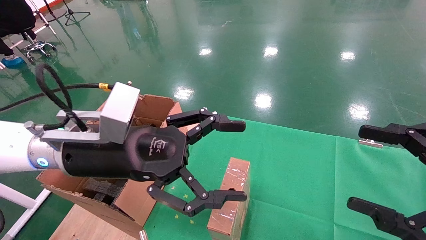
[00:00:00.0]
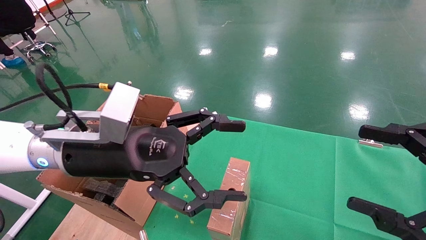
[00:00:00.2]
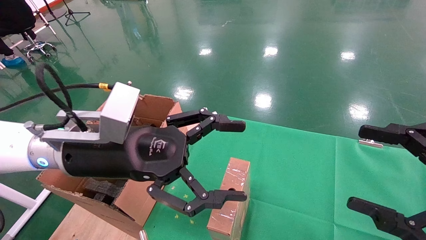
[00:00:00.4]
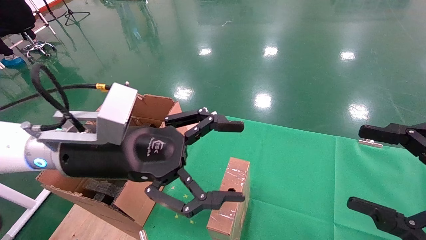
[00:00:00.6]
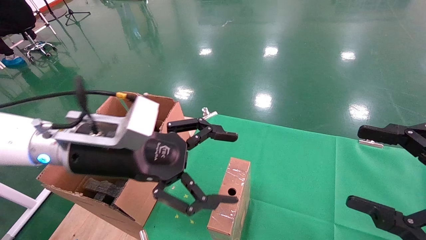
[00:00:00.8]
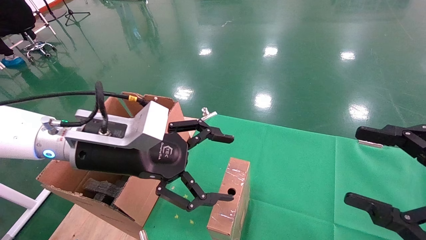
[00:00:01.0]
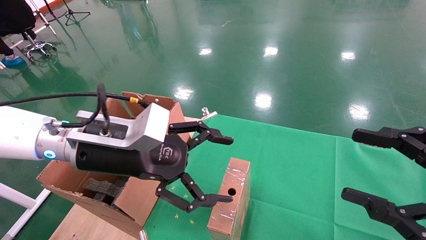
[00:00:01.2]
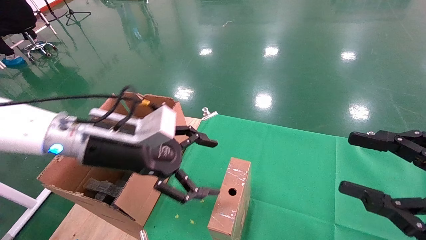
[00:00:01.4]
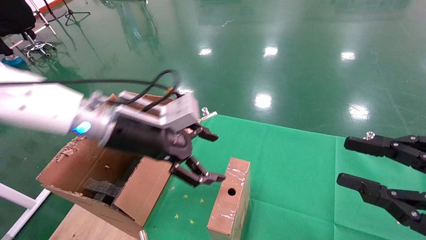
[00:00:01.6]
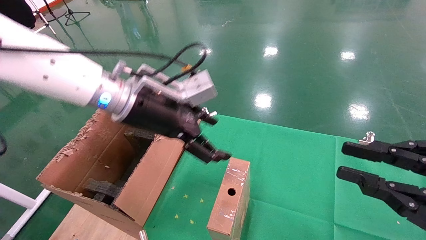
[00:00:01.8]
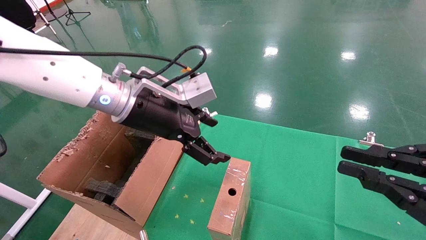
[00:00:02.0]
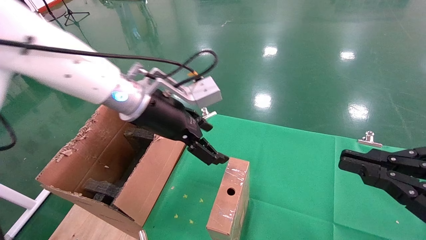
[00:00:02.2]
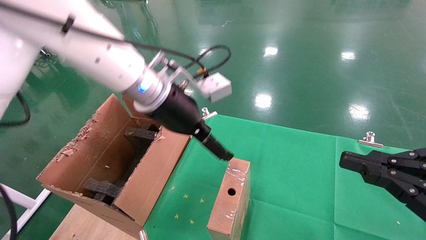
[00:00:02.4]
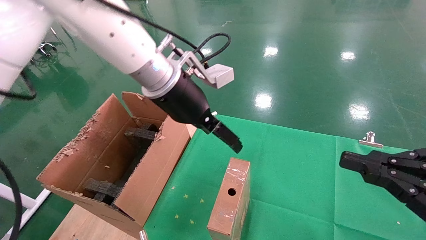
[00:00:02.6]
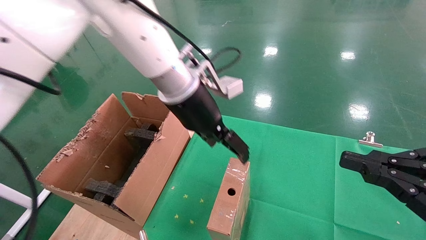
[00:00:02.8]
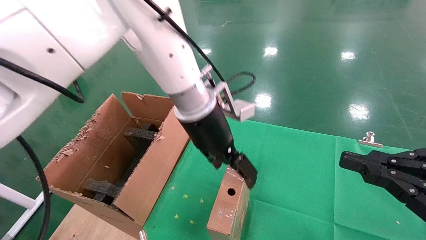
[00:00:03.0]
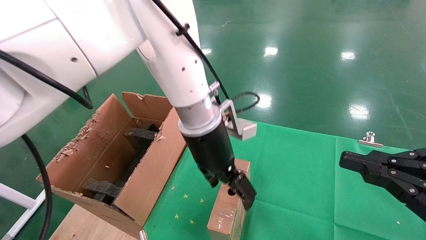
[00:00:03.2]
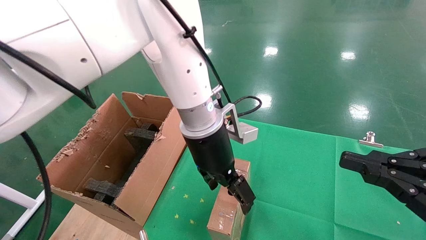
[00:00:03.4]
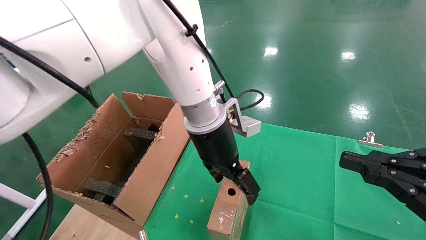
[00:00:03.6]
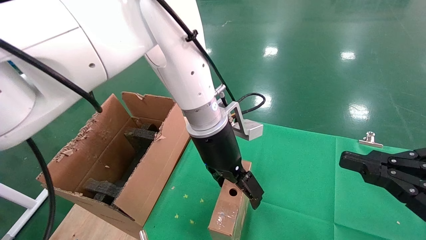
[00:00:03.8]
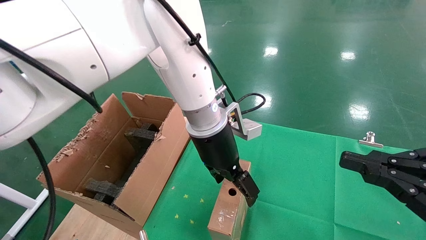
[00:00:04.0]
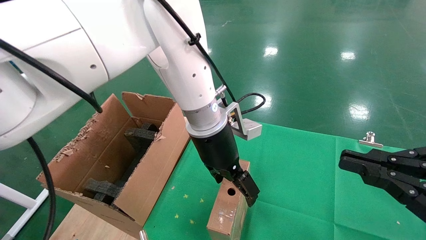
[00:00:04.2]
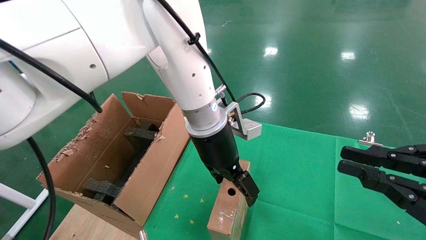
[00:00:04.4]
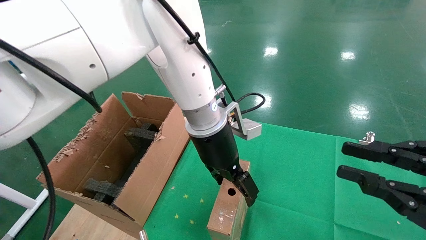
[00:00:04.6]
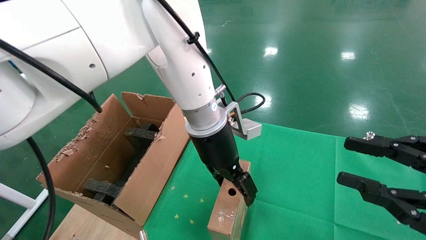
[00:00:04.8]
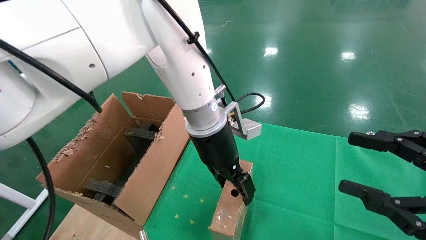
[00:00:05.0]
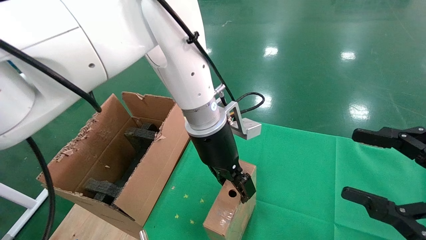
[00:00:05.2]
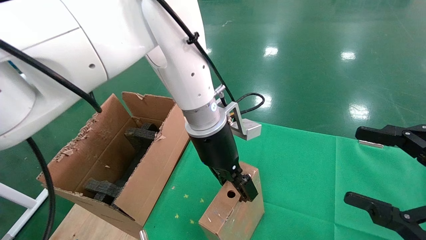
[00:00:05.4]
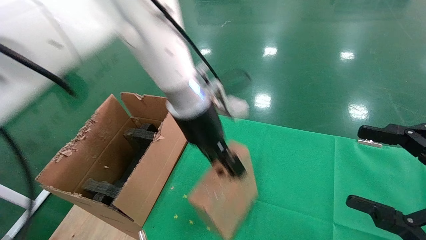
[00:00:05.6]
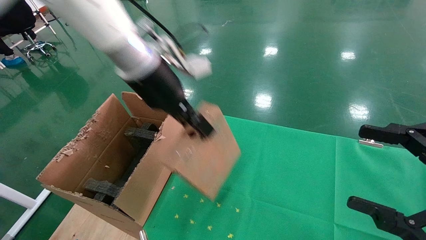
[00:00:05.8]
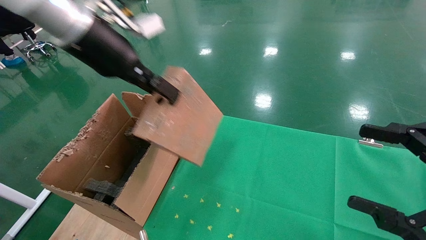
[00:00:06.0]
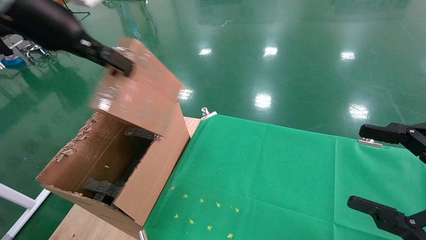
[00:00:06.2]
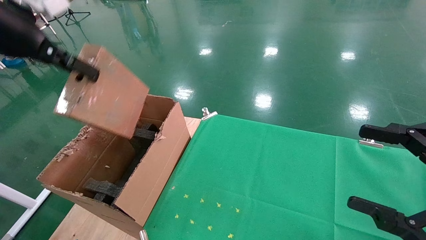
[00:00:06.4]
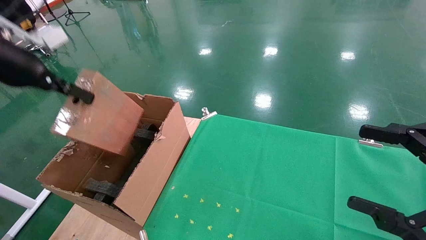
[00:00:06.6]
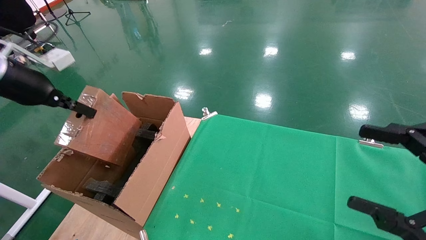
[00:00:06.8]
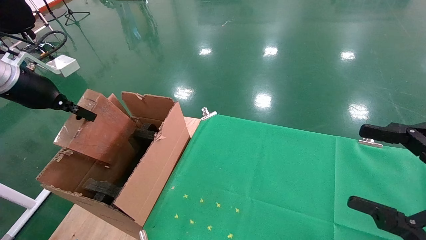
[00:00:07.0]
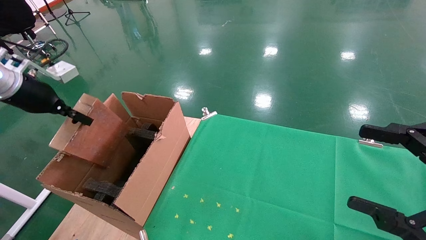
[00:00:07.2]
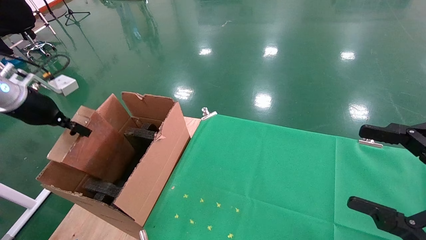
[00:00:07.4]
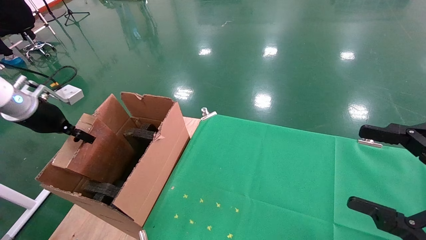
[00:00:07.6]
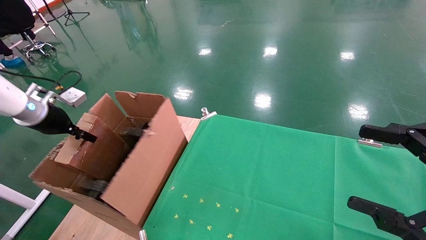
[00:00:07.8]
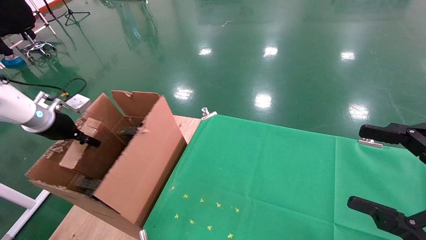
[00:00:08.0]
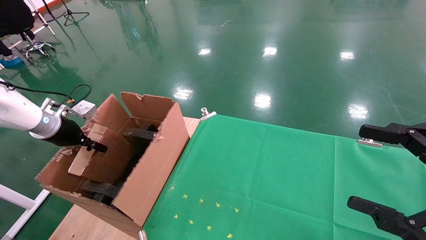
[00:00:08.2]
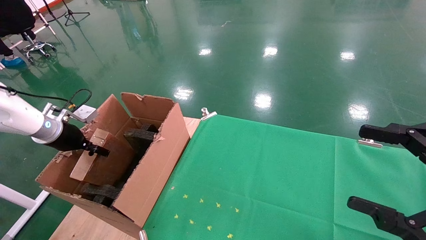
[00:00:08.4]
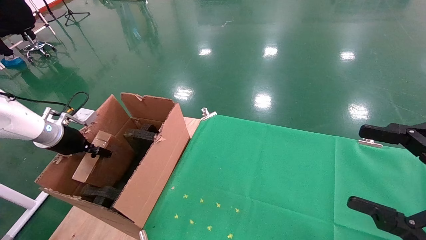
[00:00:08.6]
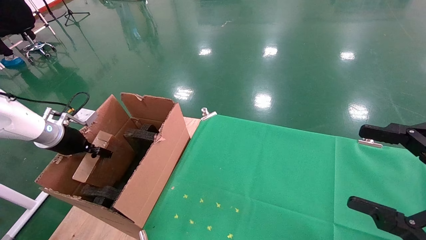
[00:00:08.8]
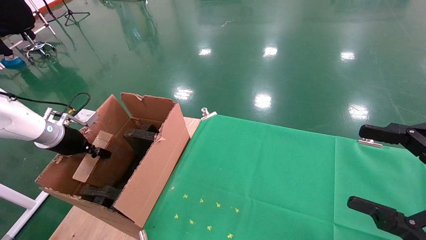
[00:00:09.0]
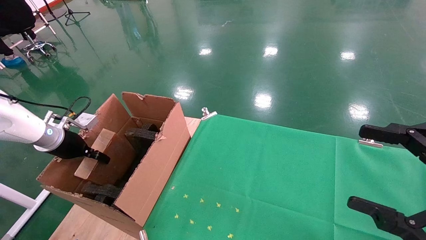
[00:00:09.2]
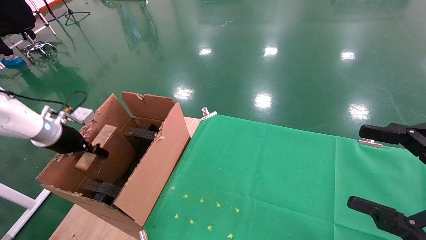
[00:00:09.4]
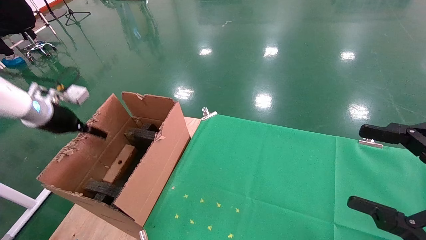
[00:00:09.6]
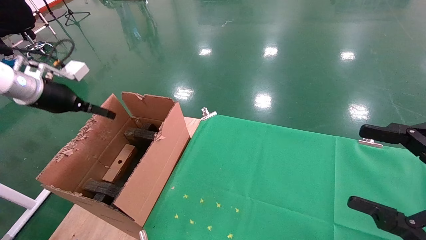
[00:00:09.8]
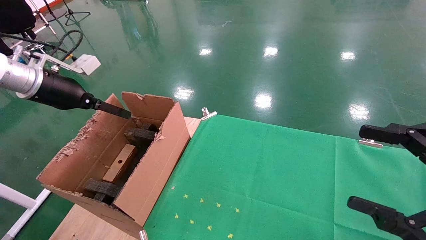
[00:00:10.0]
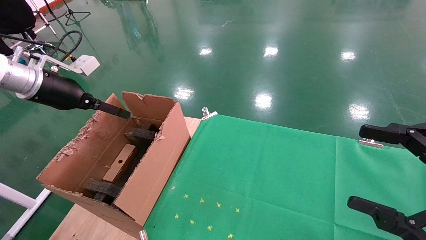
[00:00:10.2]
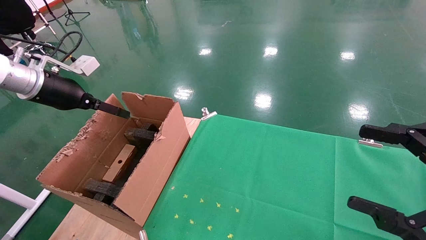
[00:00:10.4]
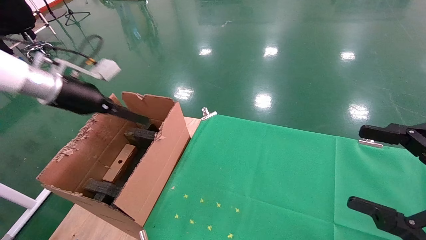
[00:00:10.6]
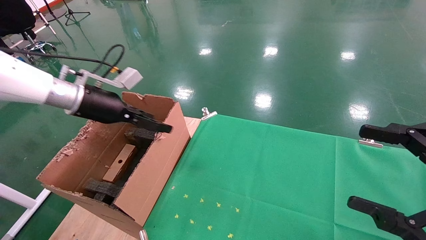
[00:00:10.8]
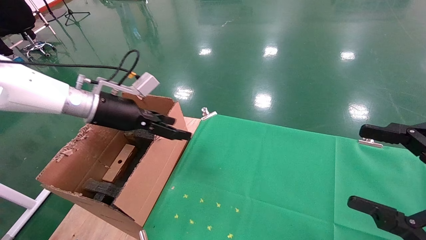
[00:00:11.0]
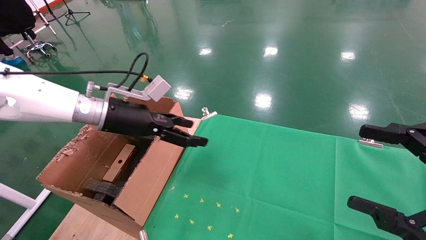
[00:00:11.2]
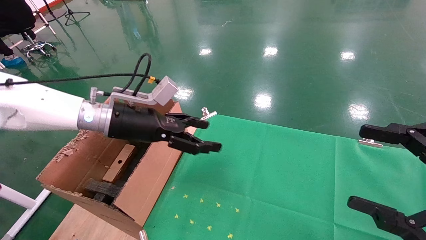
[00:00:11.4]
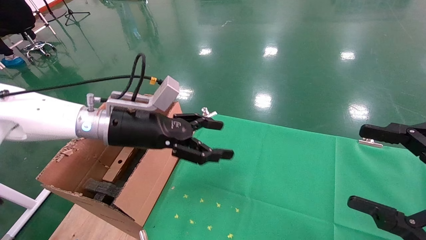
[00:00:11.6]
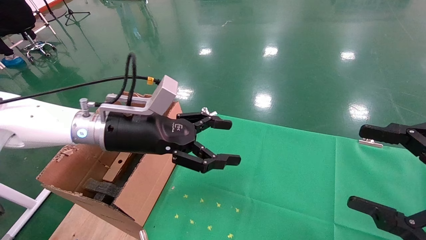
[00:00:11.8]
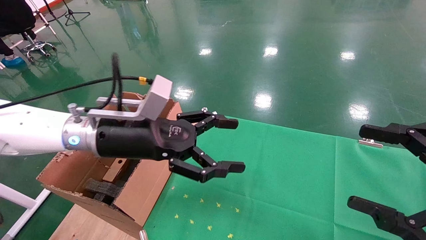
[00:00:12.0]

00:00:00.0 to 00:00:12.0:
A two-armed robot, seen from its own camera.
Task of the whole recording: using a robotic arm to pick up a cardboard box and palace it the carton.
Step, 00:00:01.2 to 00:00:05.2: Pick up the mouse and the power cord paper box.
Step, 00:00:05.4 to 00:00:09.4: Place the mouse and the power cord paper box into the container.
00:00:00.0 to 00:00:01.6: The right gripper closes its fingers. Meanwhile the left gripper is displaced forward by about 5 cm.
00:00:01.6 to 00:00:03.0: The left gripper travels to the right and forward by some 15 cm. The right gripper closes.
00:00:04.4 to 00:00:06.0: The right gripper opens its fingers; the left gripper goes about 25 cm to the left and upward, and closes.
00:00:06.0 to 00:00:07.6: The left gripper goes some 30 cm to the left and downward.
00:00:07.6 to 00:00:09.0: The left gripper shifts approximately 10 cm downward.
00:00:09.0 to 00:00:10.4: The left gripper goes about 15 cm upward and to the right, and opens its fingers.
00:00:10.4 to 00:00:12.0: The left gripper heads to the right, covering roughly 20 cm.

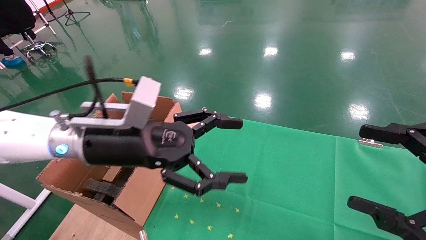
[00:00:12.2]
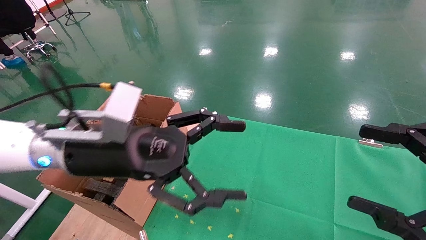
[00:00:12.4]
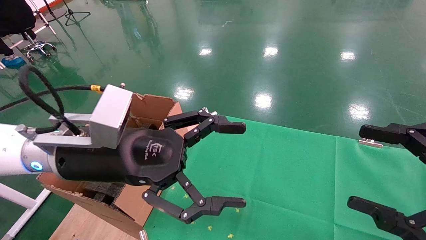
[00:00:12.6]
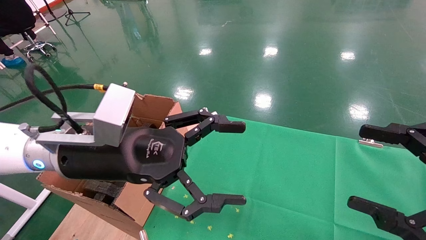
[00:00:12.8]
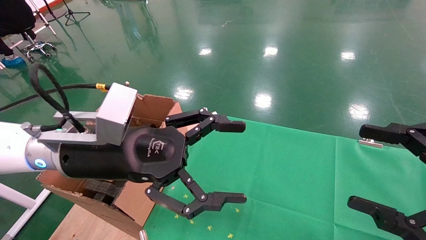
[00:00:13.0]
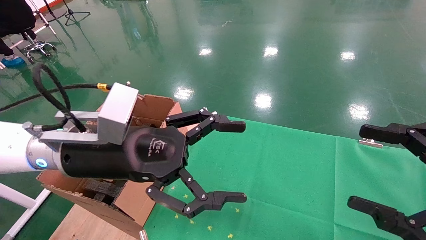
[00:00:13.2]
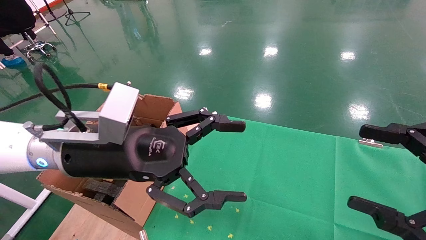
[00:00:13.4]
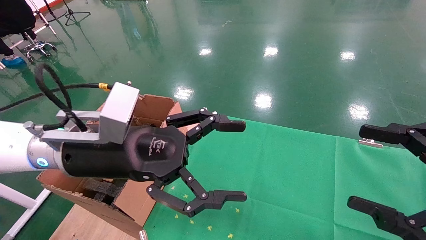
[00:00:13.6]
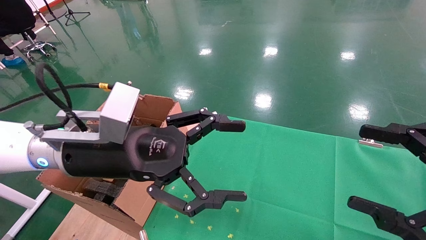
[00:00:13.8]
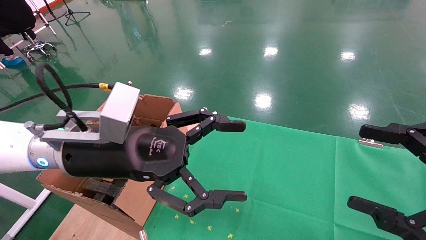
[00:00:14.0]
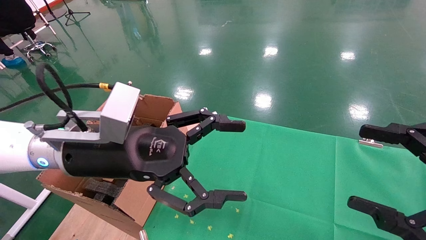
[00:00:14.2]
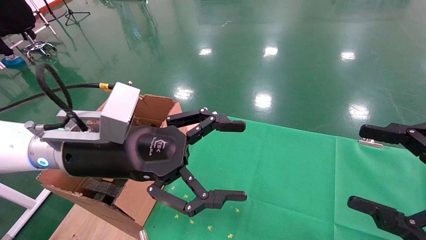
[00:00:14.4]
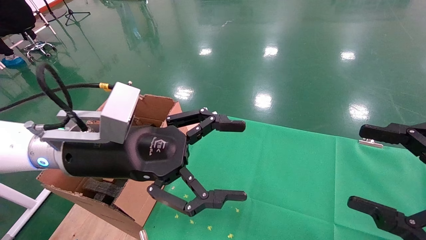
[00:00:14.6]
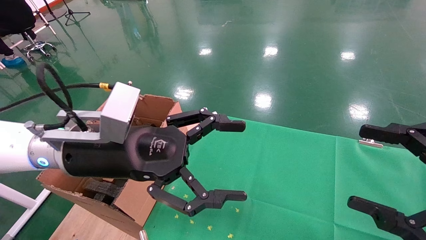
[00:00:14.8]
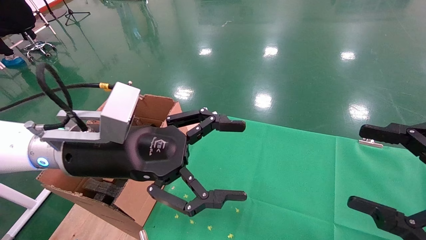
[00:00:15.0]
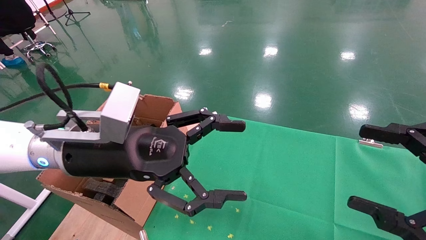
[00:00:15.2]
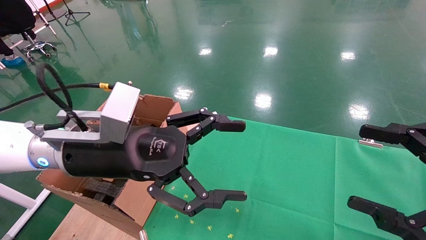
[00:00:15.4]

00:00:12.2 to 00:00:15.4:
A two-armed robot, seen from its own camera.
Task of the whole recording: using a robotic arm to pick up a cardboard box and palace it the carton.
00:00:12.2 to 00:00:13.8: The grippers make only small movements.
00:00:13.8 to 00:00:15.4: The two grippers keep their place.
